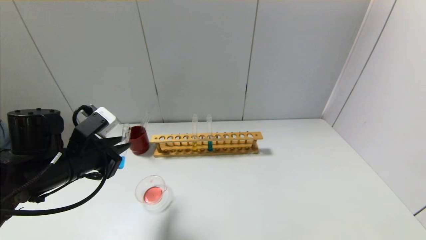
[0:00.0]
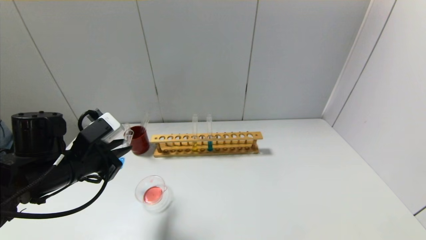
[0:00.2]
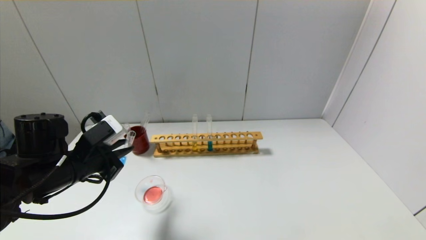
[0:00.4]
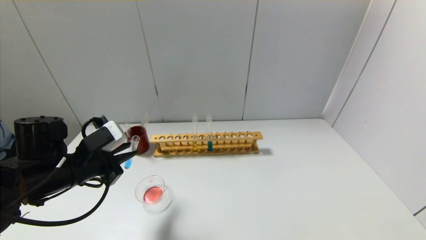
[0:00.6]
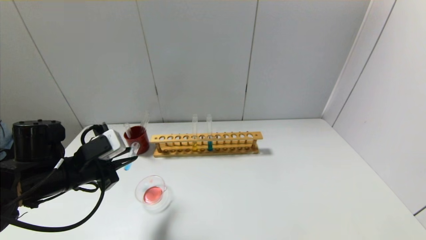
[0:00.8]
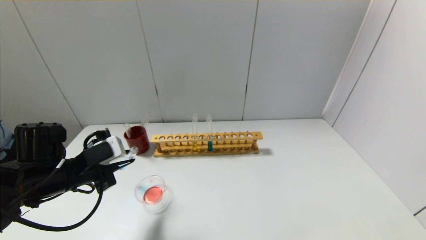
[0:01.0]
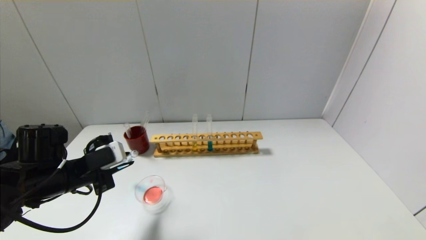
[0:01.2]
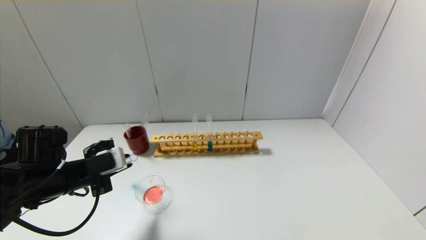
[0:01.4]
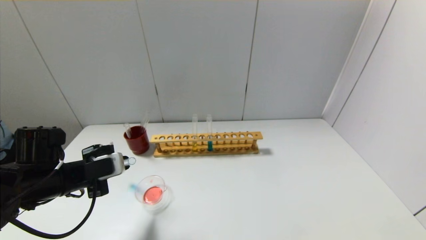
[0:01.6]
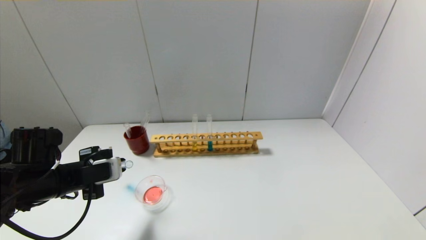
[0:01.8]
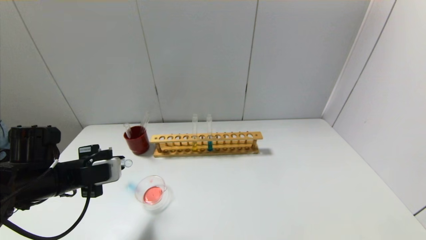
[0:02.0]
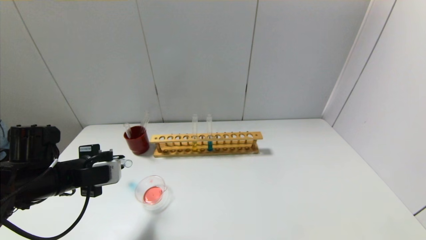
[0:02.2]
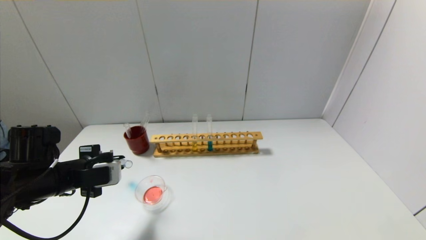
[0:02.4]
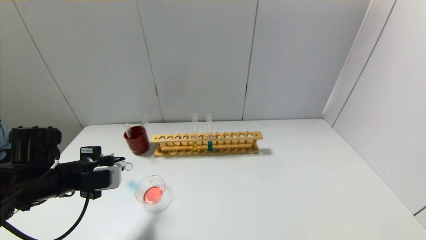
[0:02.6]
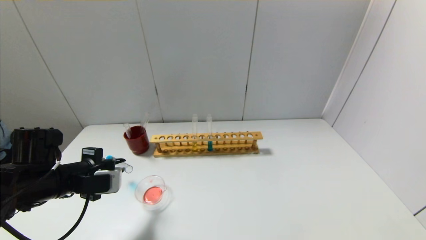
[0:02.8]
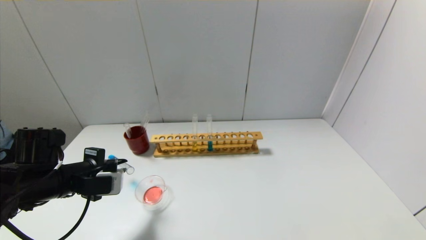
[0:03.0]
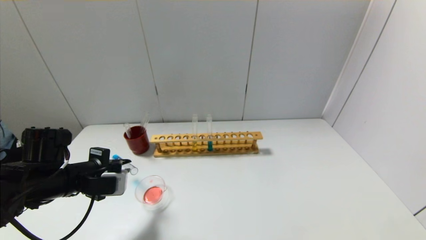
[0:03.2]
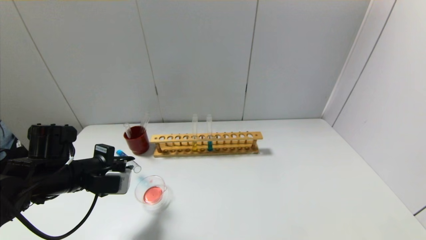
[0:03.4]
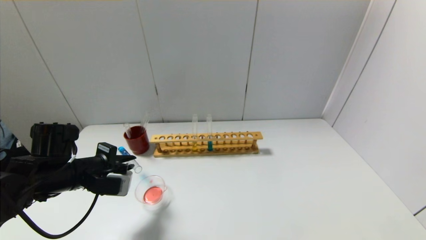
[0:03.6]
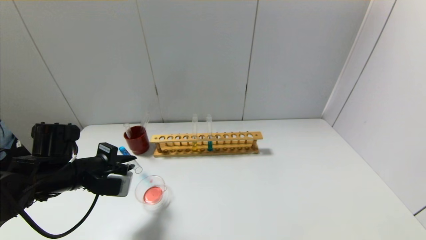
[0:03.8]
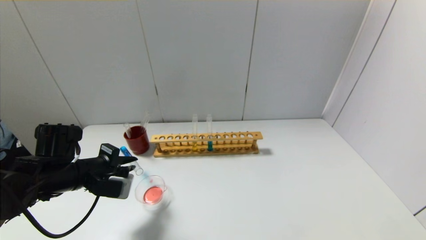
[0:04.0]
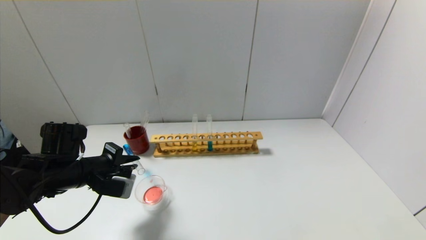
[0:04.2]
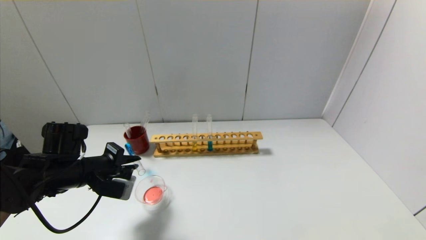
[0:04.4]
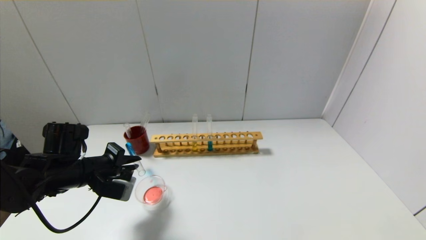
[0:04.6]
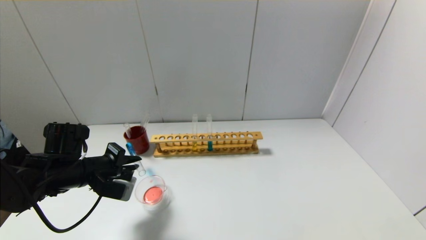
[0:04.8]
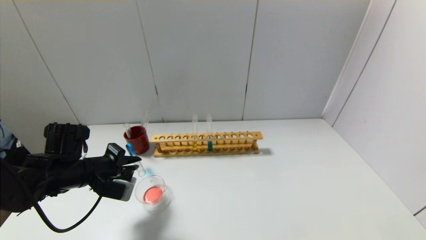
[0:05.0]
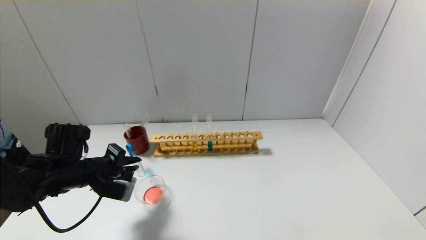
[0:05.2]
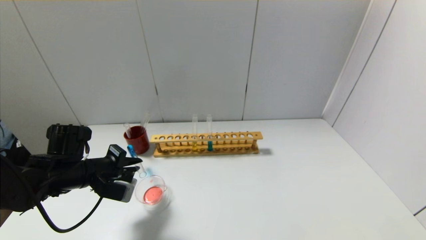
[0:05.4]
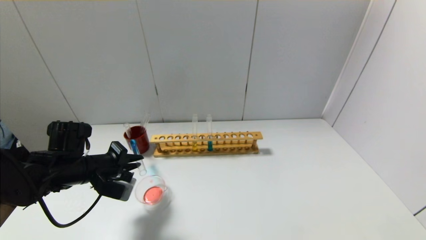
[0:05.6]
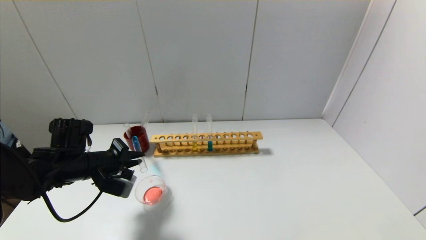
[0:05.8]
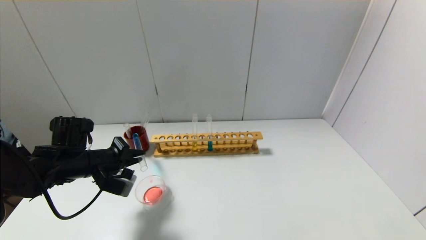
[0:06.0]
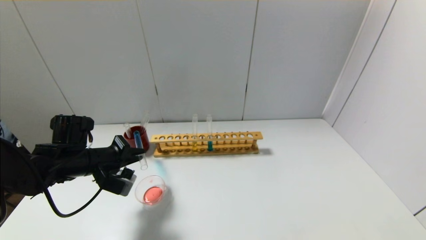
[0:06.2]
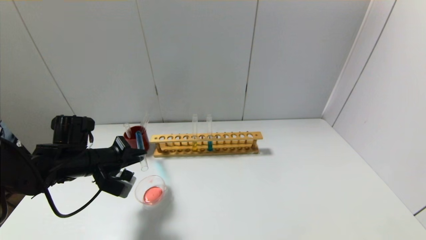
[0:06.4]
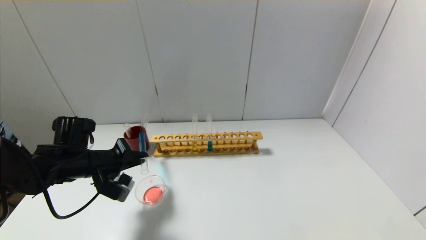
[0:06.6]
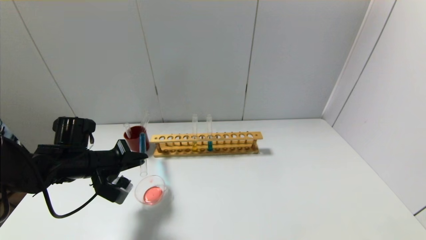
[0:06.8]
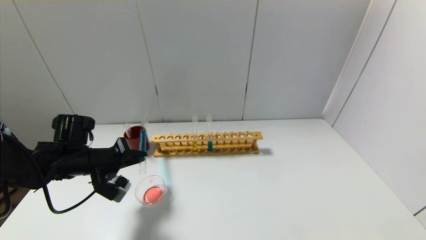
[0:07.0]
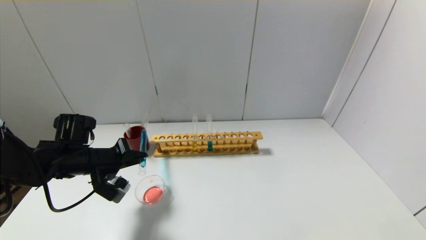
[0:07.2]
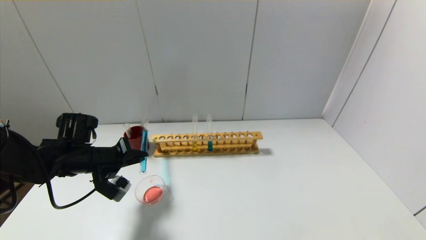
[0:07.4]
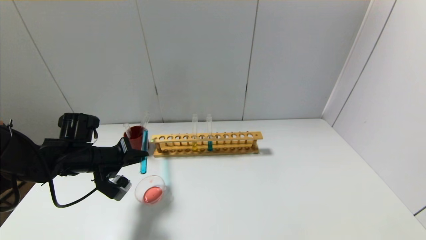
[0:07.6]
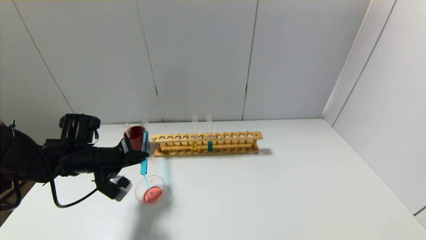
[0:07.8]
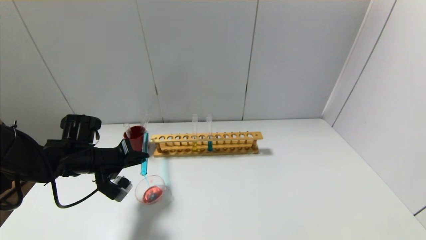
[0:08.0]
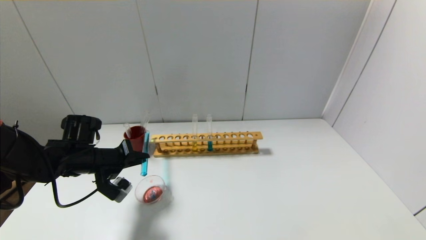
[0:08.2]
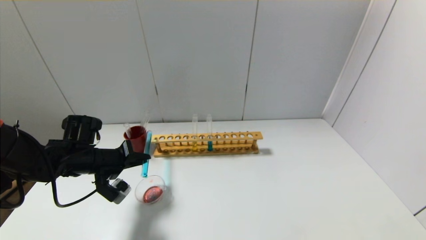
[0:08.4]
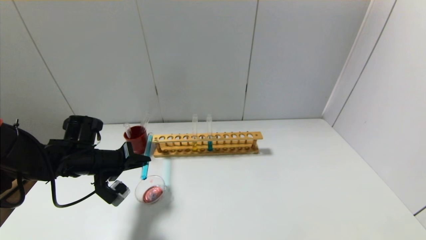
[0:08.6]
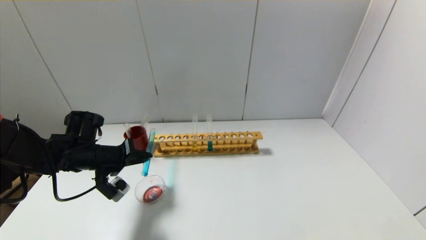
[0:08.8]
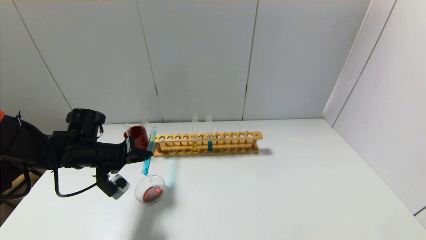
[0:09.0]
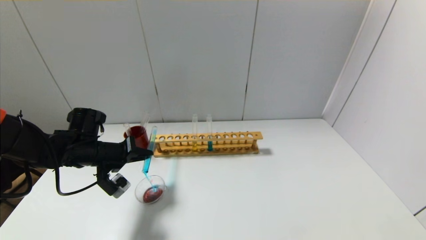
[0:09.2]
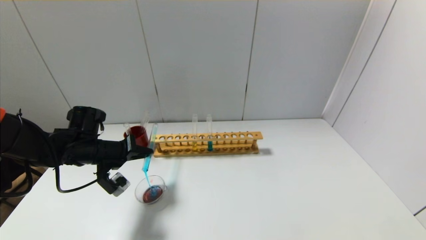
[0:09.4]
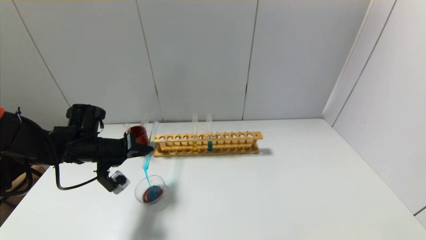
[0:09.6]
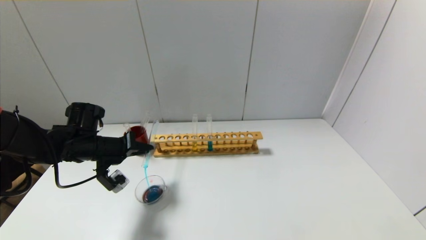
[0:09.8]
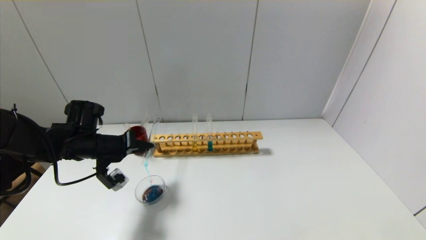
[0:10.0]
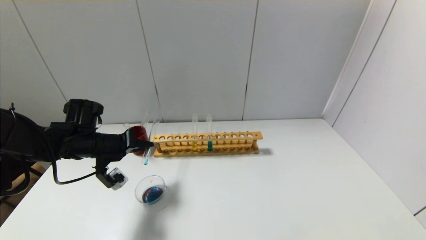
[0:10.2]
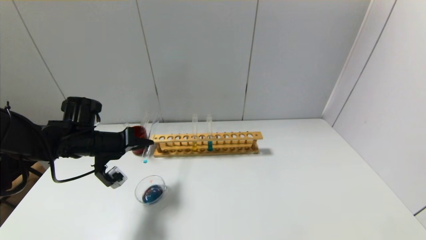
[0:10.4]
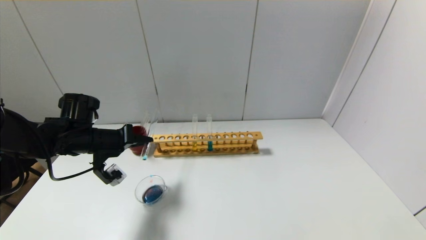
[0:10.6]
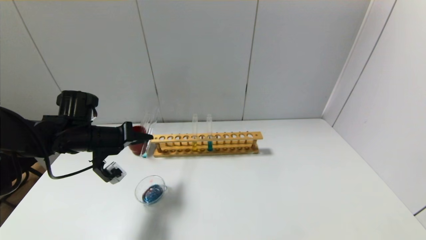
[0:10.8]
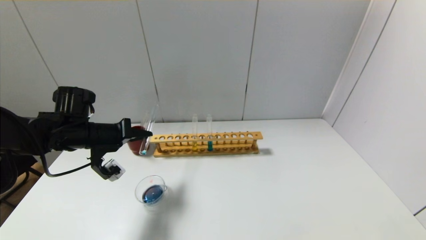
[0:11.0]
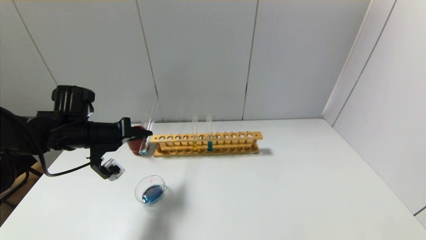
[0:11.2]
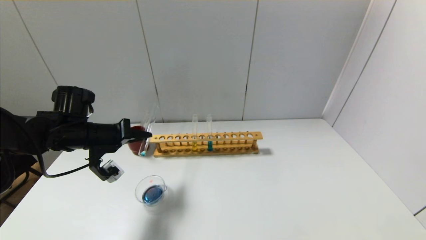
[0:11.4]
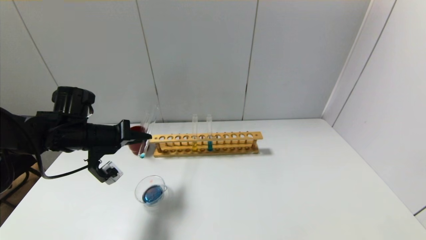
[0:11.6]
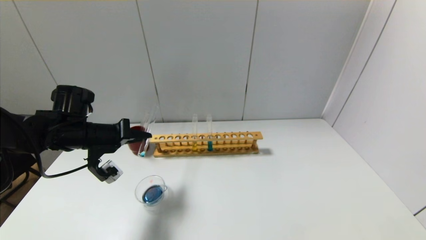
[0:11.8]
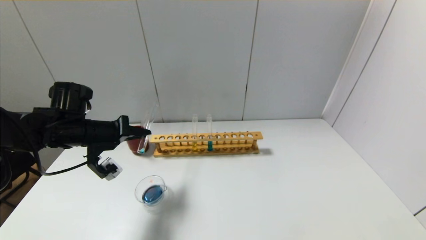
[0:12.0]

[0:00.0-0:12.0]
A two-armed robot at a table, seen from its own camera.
0:00.0 to 0:01.6: The left gripper ends up about 5 cm from where it was.
0:01.6 to 0:03.0: The grippers move only a little.
0:03.0 to 0:04.4: There are only small adjustments of the grippers.
0:04.4 to 0:06.0: The grippers make only small movements.
0:06.0 to 0:07.6: There are only small adjustments of the grippers.
0:07.6 to 0:09.0: The grippers stay close to where they were, moving slightly.
0:09.0 to 0:10.4: There are only small adjustments of the grippers.
0:10.4 to 0:12.0: The grippers move only a little.

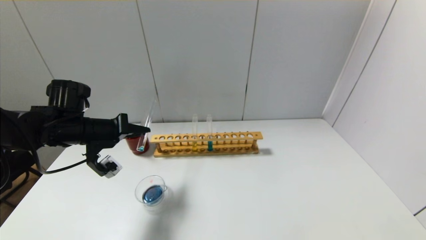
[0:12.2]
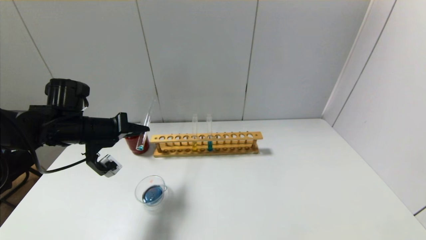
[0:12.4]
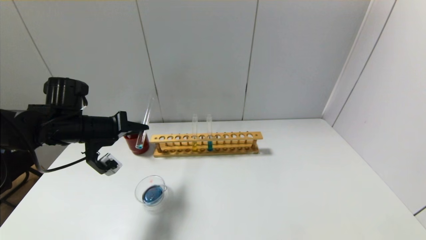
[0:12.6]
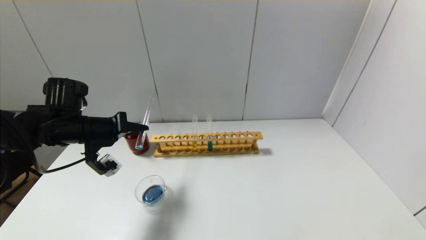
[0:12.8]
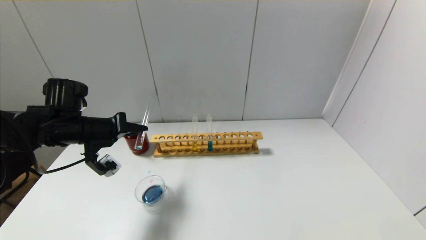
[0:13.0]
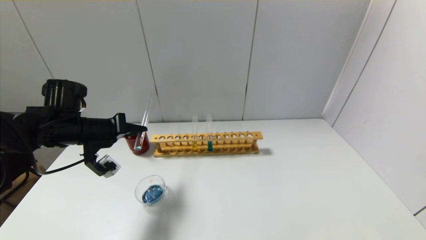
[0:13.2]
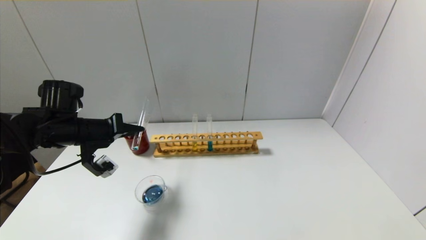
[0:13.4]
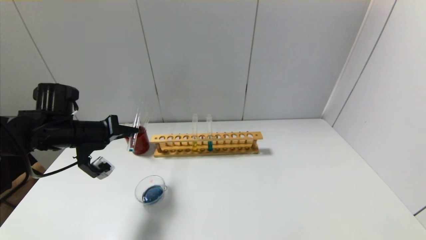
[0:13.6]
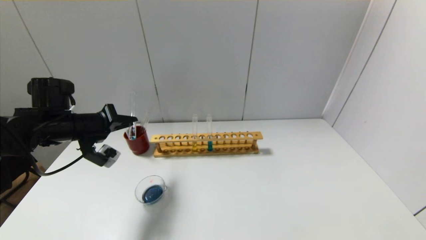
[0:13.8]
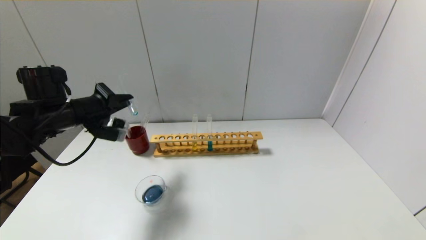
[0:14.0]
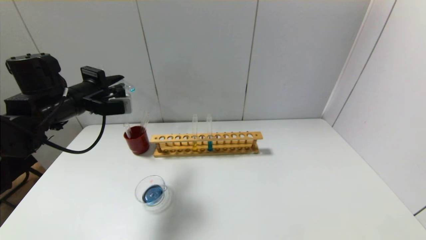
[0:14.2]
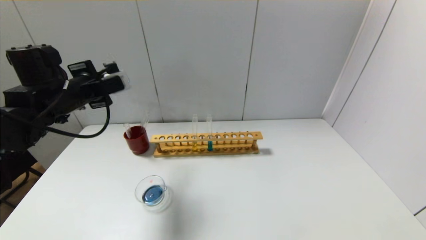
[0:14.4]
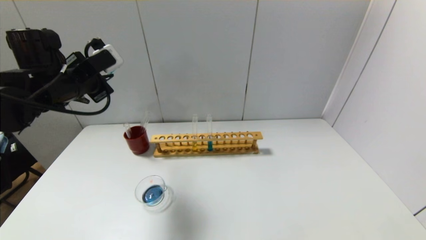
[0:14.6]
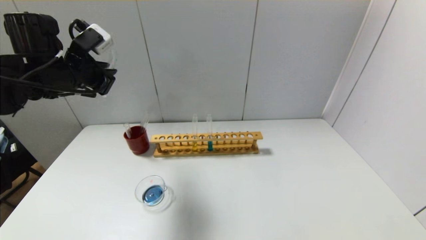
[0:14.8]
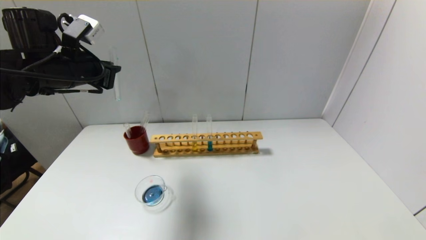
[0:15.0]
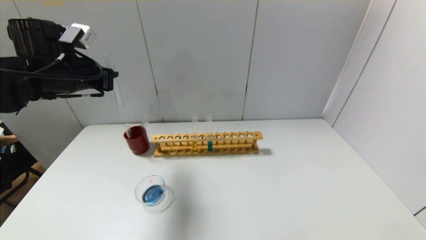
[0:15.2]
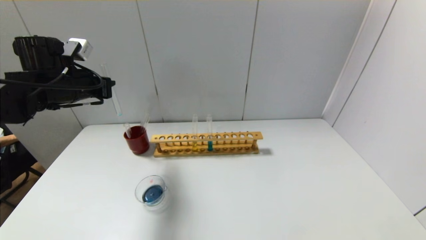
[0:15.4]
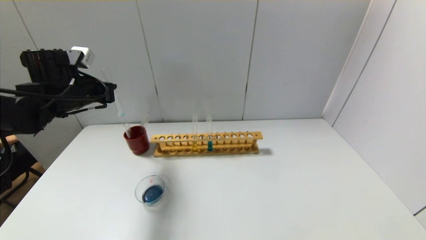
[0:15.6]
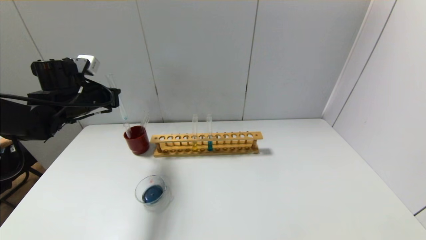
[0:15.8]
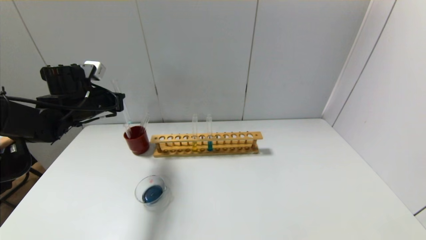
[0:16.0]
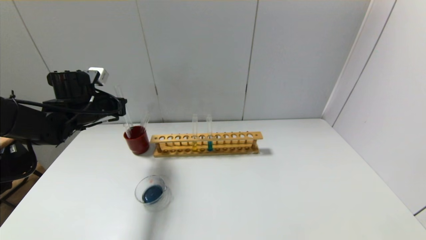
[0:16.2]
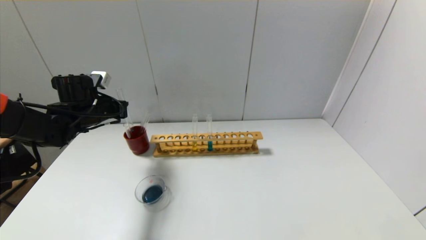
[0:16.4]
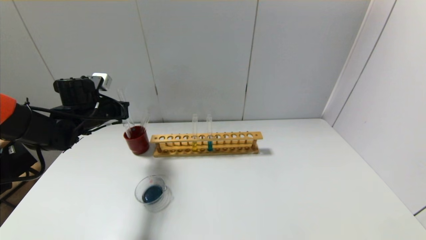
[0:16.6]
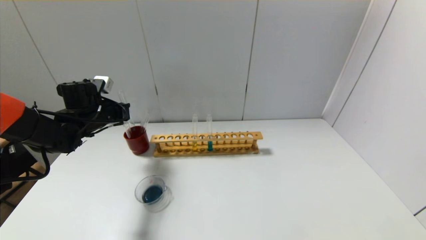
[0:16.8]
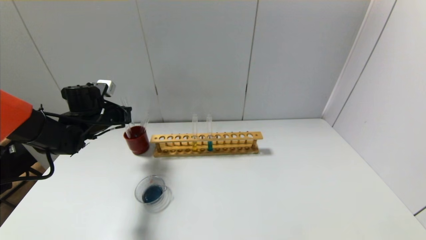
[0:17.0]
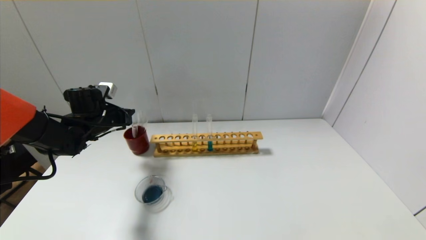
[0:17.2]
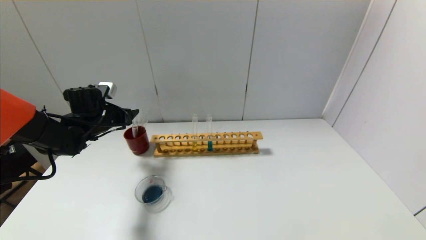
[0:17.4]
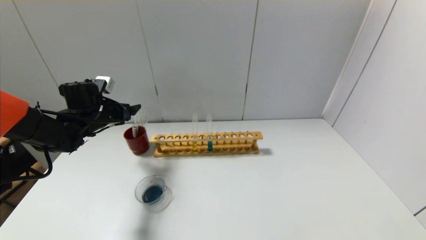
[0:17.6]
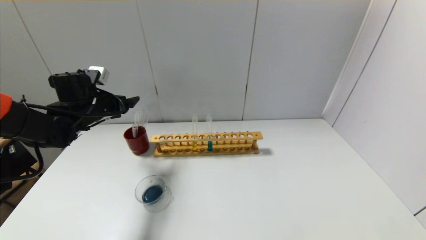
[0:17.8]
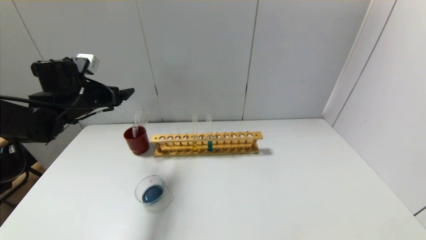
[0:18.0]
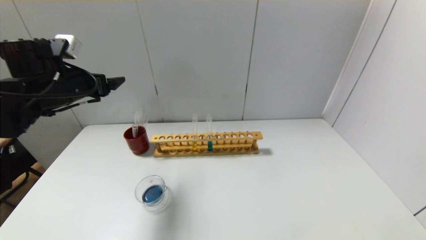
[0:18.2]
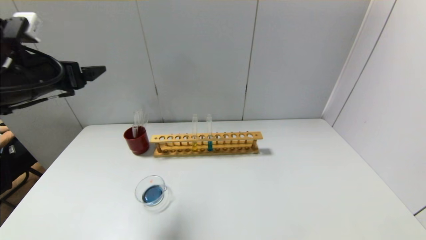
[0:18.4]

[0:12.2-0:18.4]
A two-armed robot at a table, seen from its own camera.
Step, 0:13.8 to 0:17.2: Place the test tube into the brown cup with the left gripper.
0:12.2 to 0:13.8: The grippers stay close to where they were, moving slightly.
0:13.8 to 0:15.4: The left gripper heads upward, covering about 5 cm.
0:15.4 to 0:16.8: The left gripper shifts approximately 10 cm downward.
0:16.8 to 0:18.4: The left gripper is displaced upward and backward by about 20 cm, and opens its fingers.
